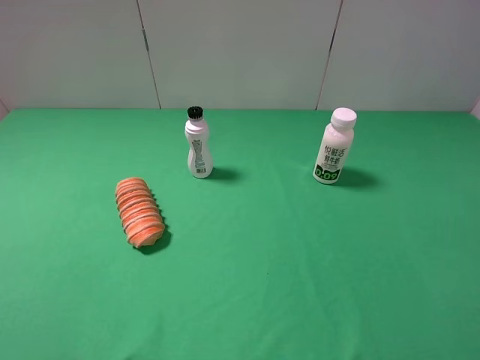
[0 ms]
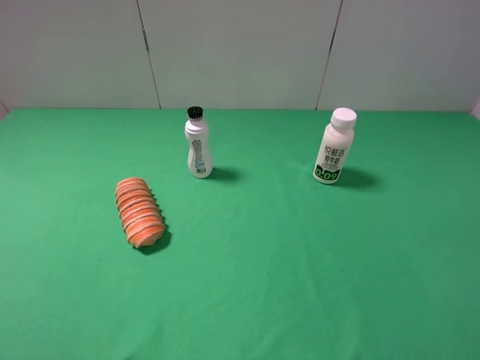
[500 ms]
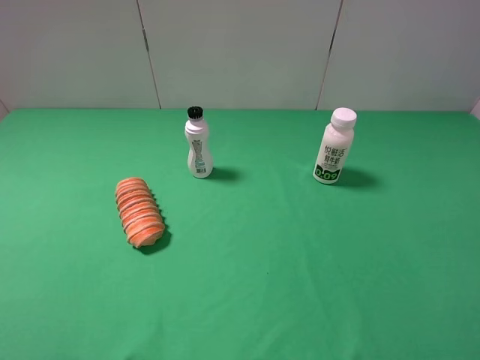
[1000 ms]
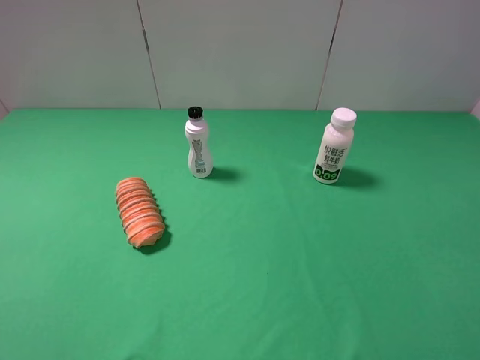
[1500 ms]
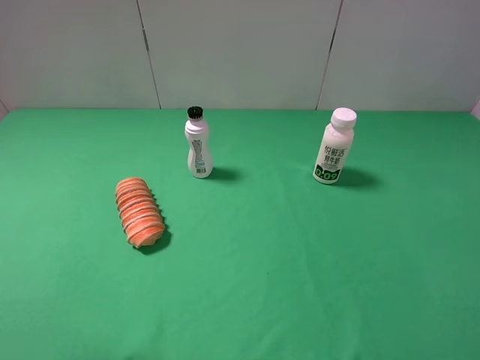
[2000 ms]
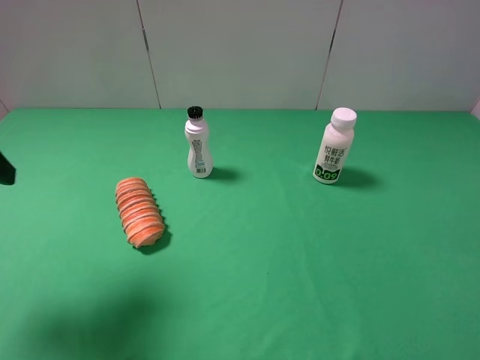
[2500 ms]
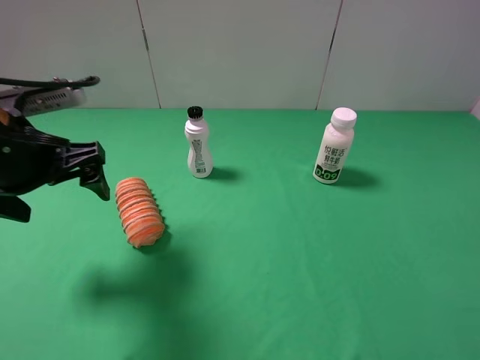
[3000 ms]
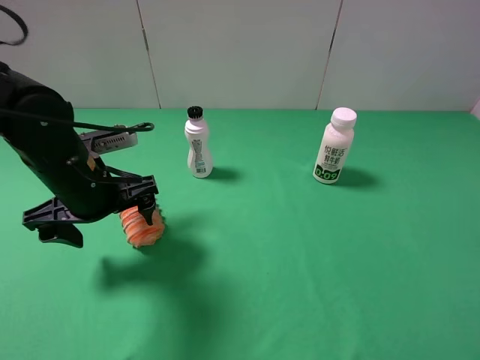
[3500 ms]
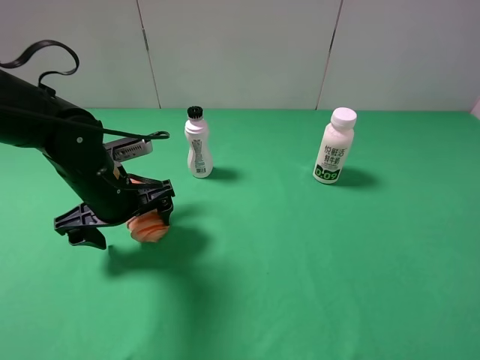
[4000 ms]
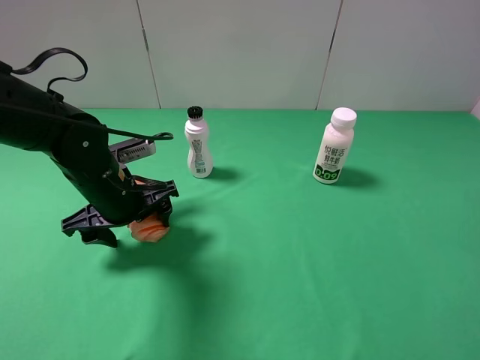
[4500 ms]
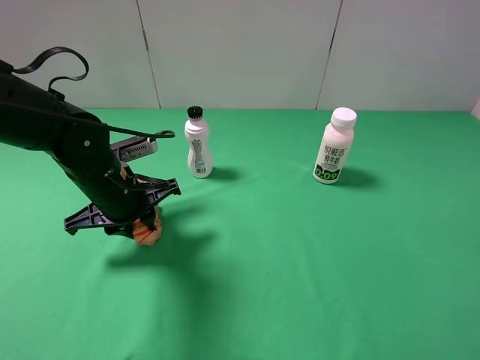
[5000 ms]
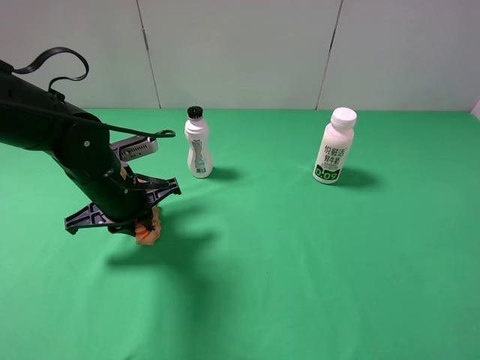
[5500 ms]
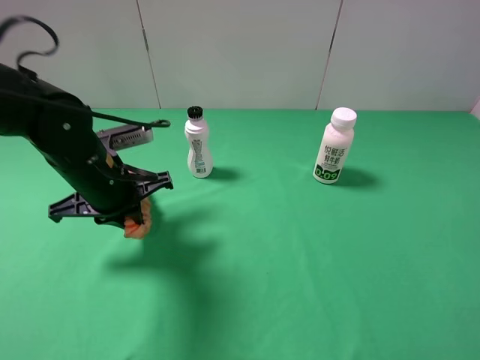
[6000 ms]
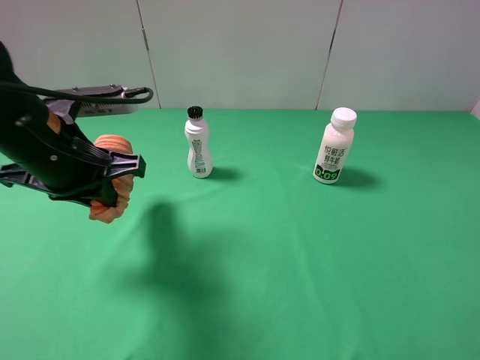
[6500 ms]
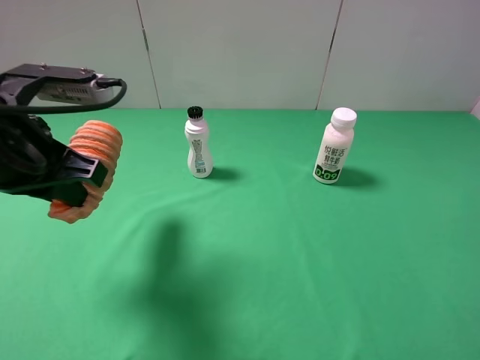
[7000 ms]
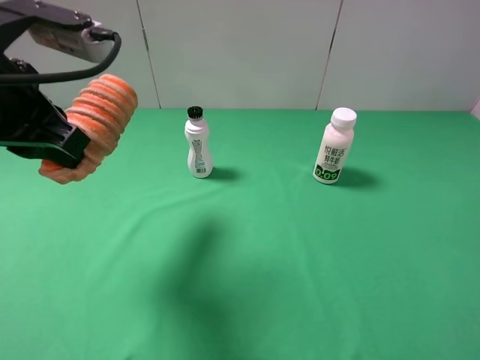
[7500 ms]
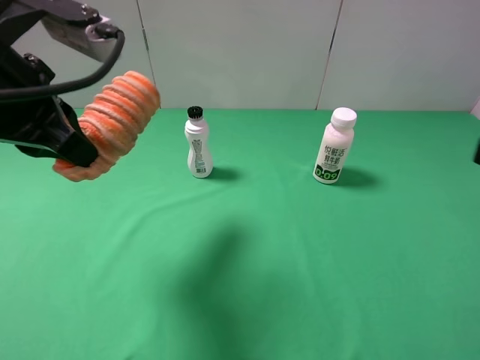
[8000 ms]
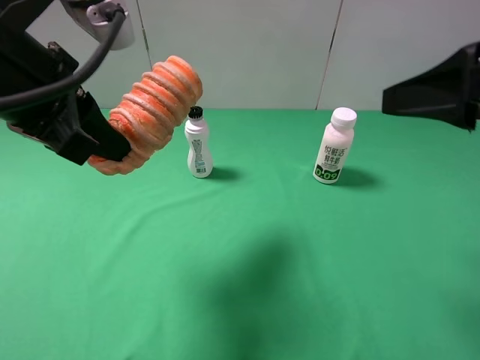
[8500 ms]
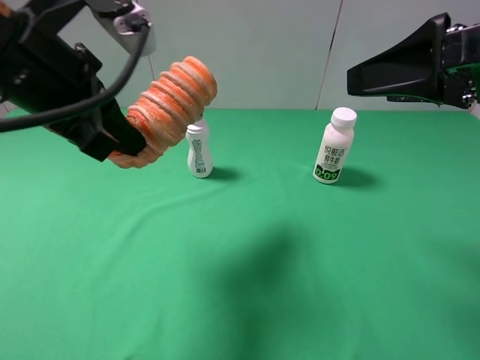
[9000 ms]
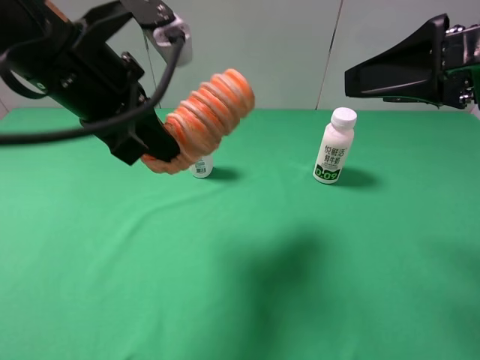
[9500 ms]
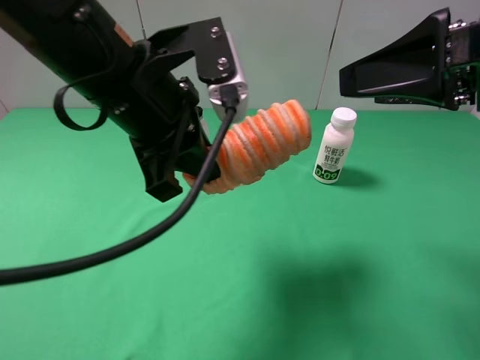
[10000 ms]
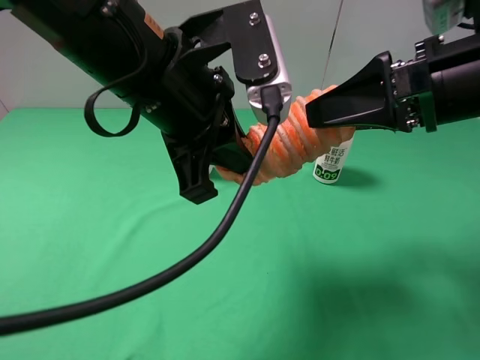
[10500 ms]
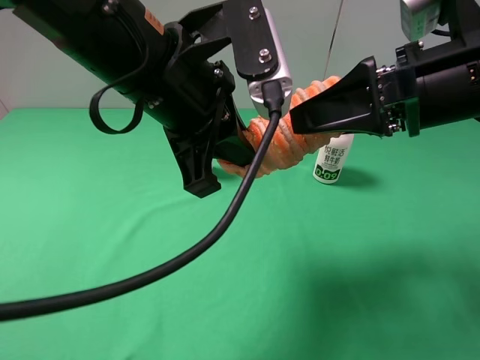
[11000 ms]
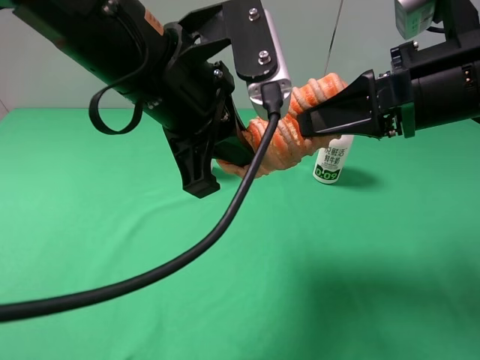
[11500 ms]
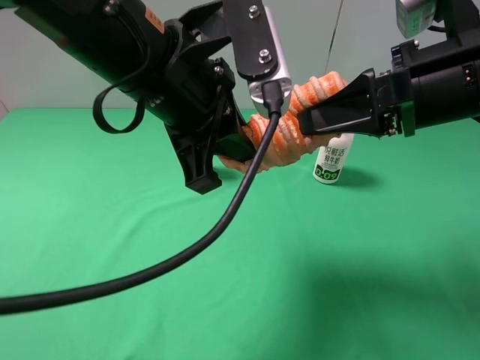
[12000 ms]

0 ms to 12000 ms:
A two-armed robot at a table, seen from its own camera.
Task of the whole recording: use the left gripper to pick up the item and transfer it from the left gripper to the right gripper.
Step, 0 ms to 5500 ms: Use the left gripper to grab the long bread on the left side of the table.
2000 ms to 4000 ms: The left gripper heads downward, forward and to the right, covering about 35 cm.
4000 ms to 6000 ms: The left gripper closes up.
6000 ms to 8000 ms: The left gripper shifts some 15 cm upward; the right gripper is displaced forward by approximately 10 cm.
8000 ms to 10000 ms: The right gripper travels forward and to the left by some 10 cm. Meanwhile the left gripper is displaced to the right by approximately 10 cm.
10000 ms to 12000 ms: The right gripper shifts by about 5 cm, and closes.

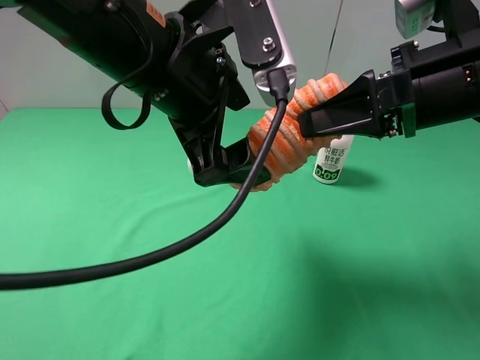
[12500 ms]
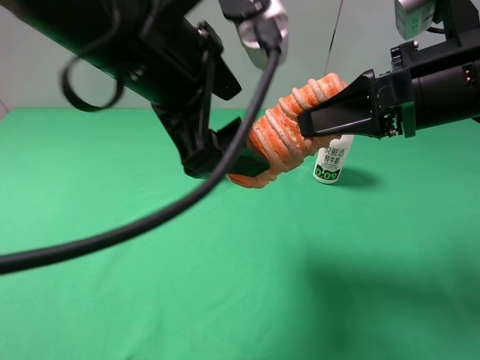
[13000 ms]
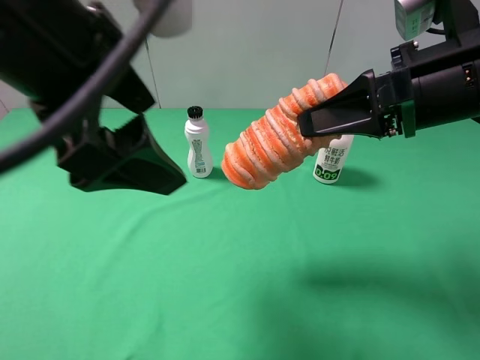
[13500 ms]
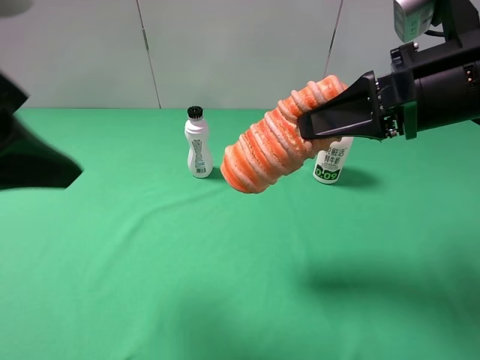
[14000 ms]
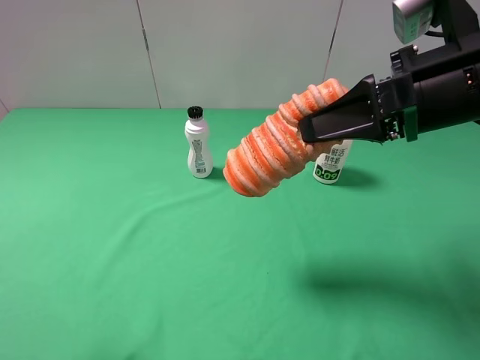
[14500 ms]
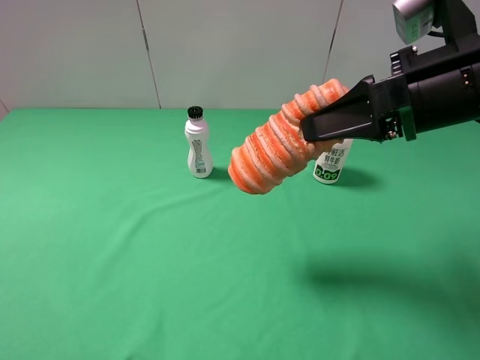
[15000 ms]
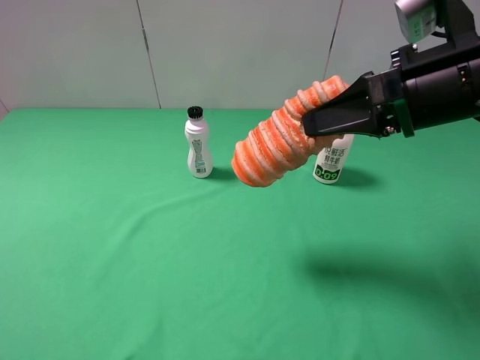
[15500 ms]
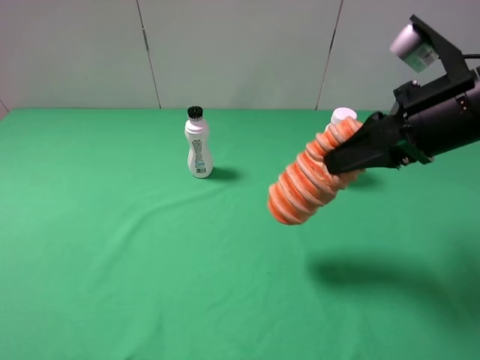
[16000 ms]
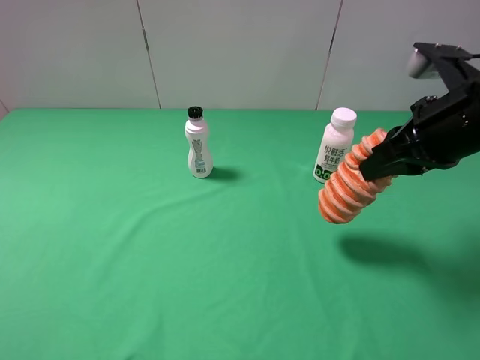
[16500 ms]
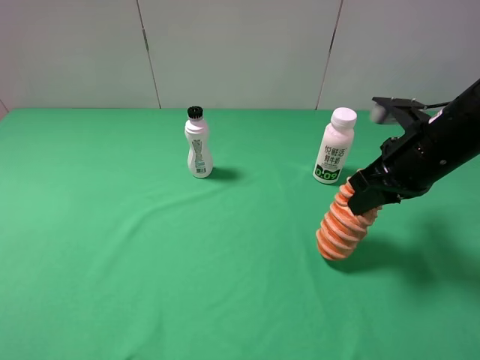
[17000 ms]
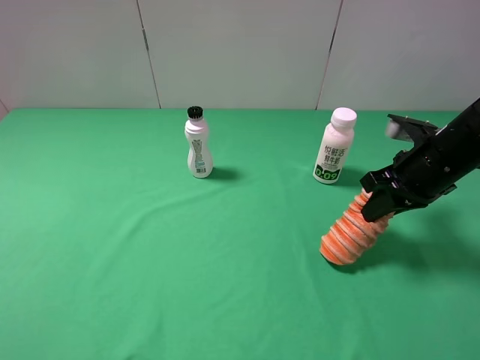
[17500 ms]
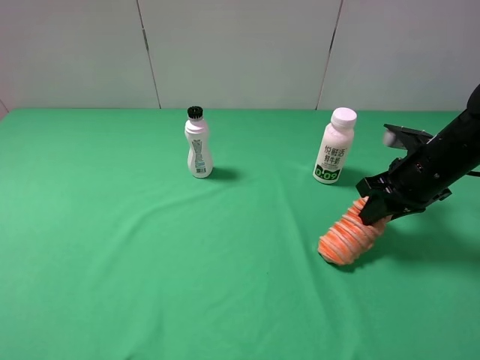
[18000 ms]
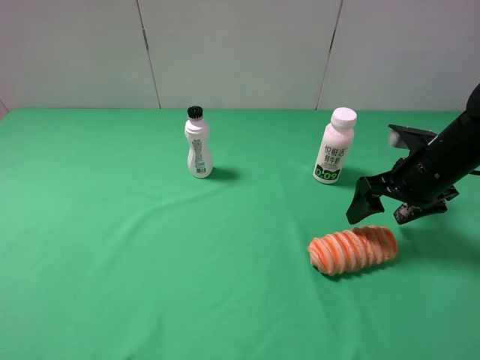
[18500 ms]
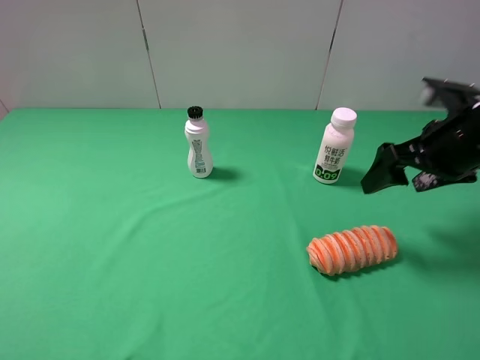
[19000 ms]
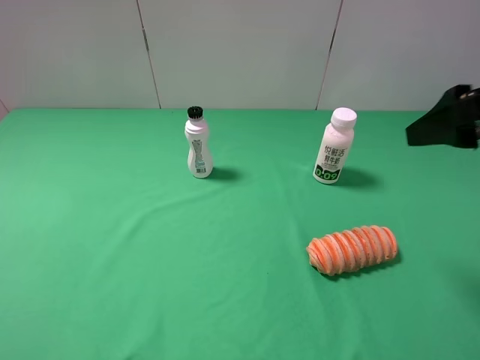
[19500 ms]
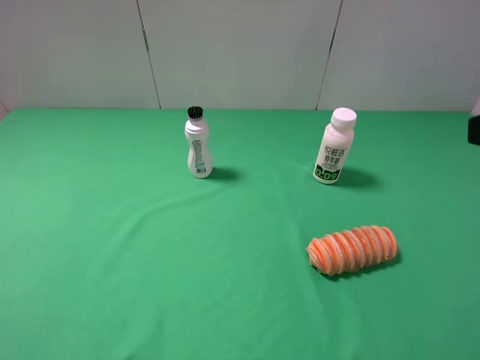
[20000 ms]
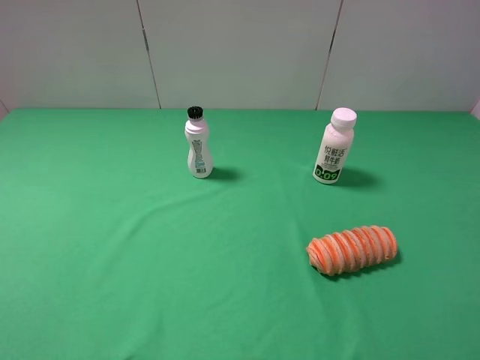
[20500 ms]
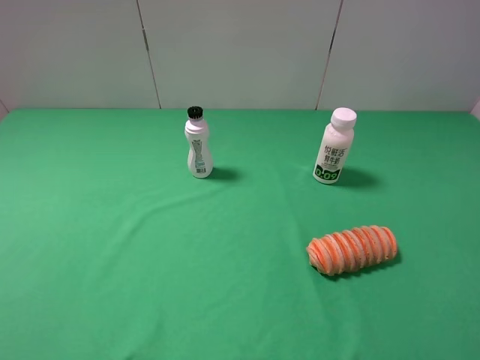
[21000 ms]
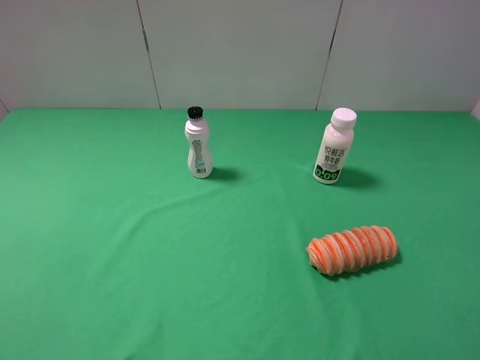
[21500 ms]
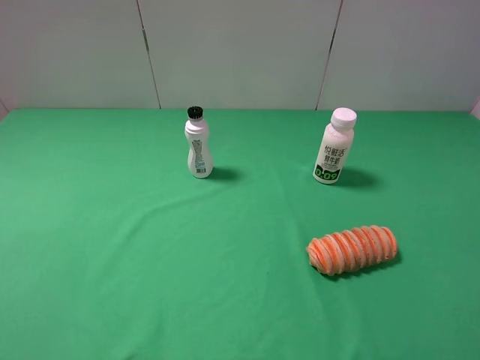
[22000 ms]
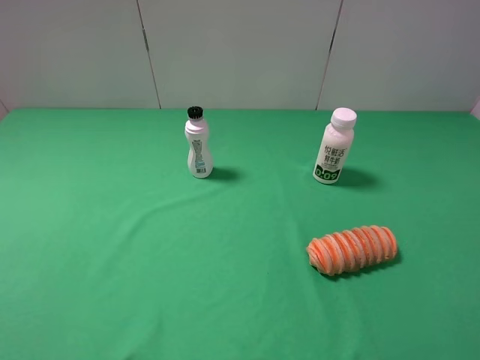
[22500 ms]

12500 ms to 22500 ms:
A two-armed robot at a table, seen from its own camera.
Task of the whole recording: use the left gripper to pick up the item and transfer it from the left gripper to the right gripper.
Step, 13500 ms to 18500 ms: The right gripper places long bread on the right side of the table.
12500 ms to 14500 ms: The left gripper goes some 30 cm to the left and backward.
14500 ms to 16500 ms: The left gripper ends up roughly 5 cm from where it was. The right gripper changes place by approximately 5 cm.
16500 ms to 18500 ms: The right gripper shifts some 10 cm downward and forward, and opens.
18500 ms to 20500 ms: The right gripper is displaced backward and upward by about 25 cm.

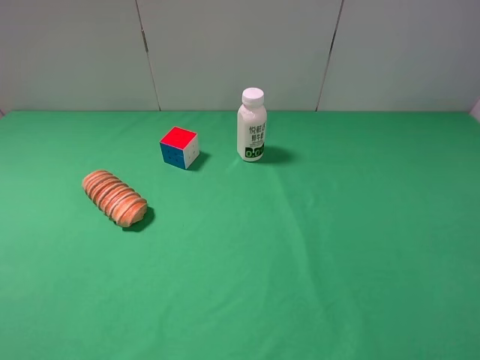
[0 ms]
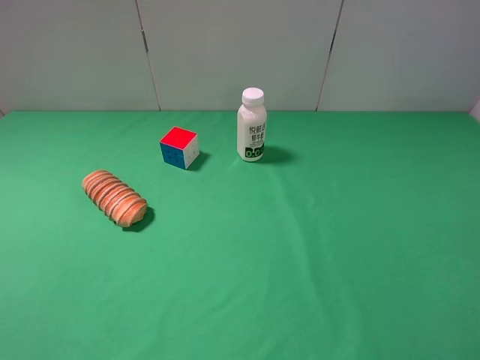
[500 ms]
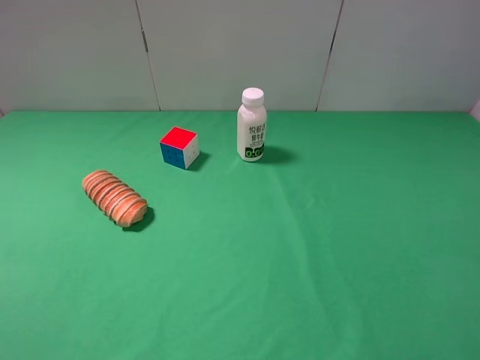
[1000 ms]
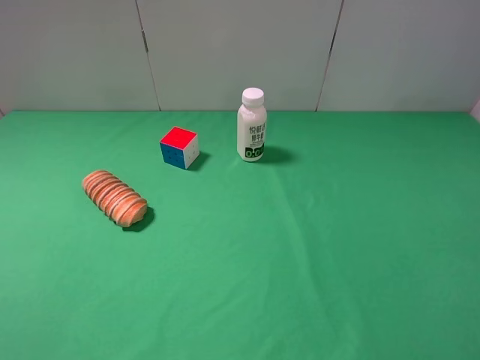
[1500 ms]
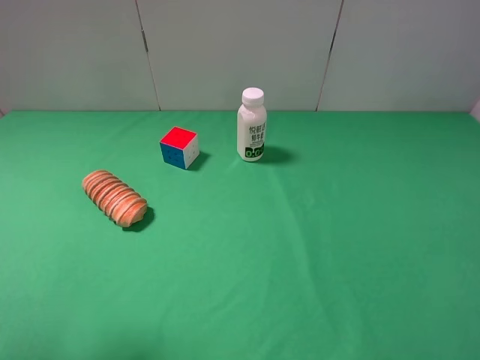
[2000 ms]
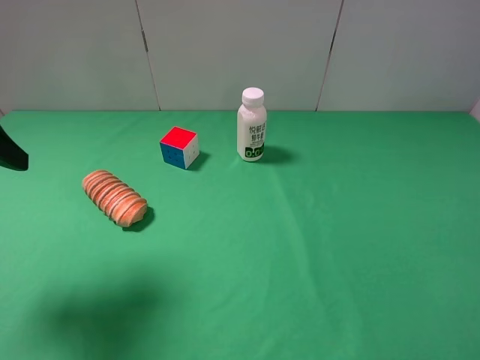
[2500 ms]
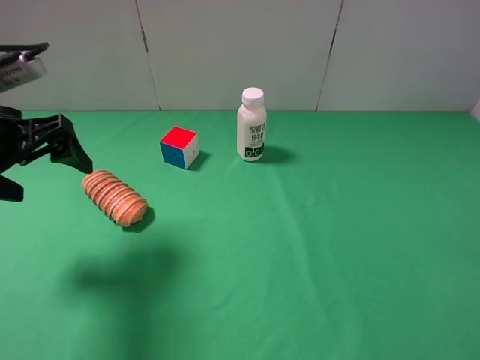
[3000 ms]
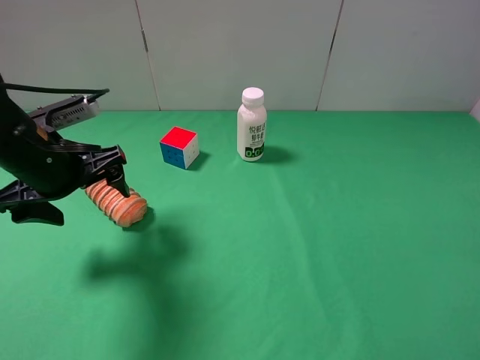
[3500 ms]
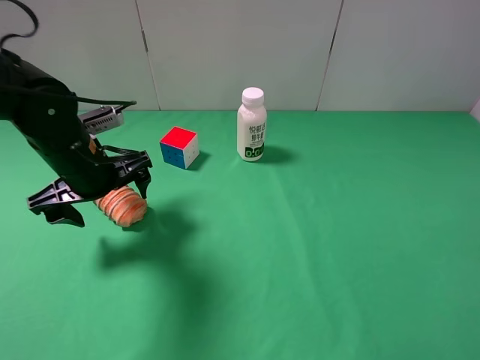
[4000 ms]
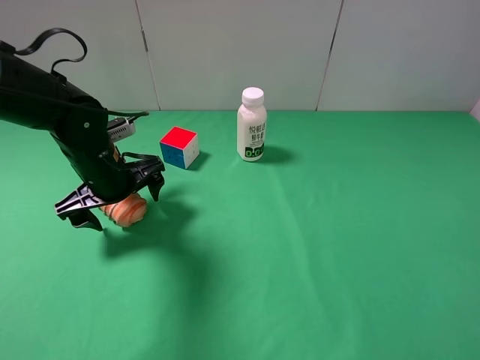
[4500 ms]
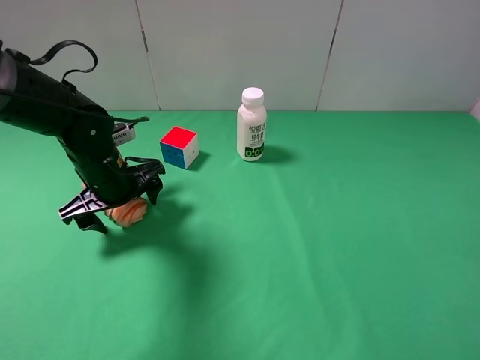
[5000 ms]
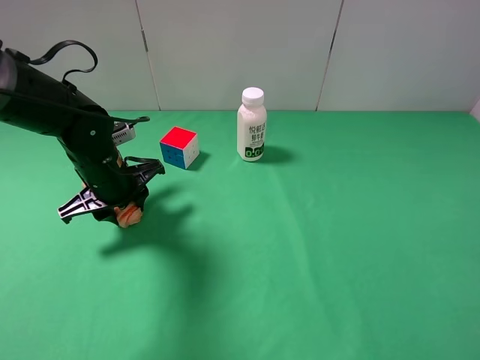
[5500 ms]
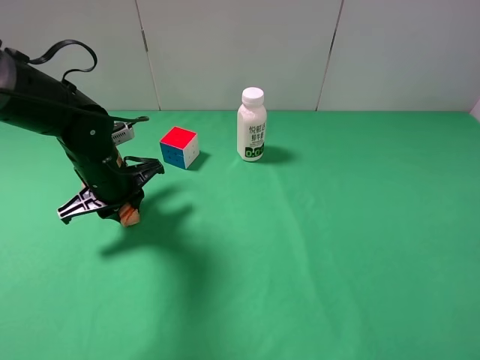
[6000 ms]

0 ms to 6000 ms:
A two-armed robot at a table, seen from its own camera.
Task of the whole recording: use the left gripper to pick up the item and transfer it from the left gripper to the right gripper.
Step, 0 ms to 5500 ms: Use the left gripper to grab the long bread on the left side of the table.
2000 ms to 4000 ms: The left gripper travels forward, downward and to the right by approximately 30 cm.
4000 ms to 6000 ms: The left gripper closes up.
